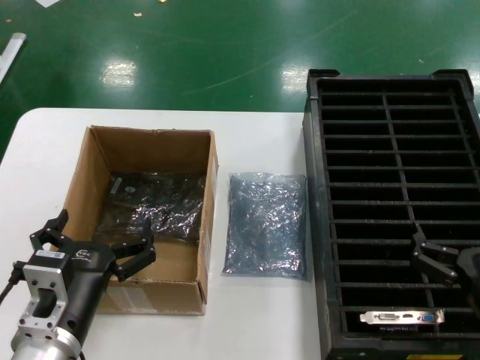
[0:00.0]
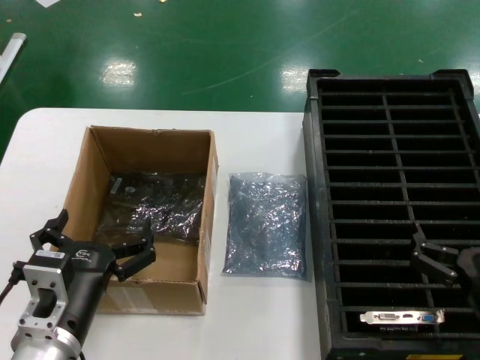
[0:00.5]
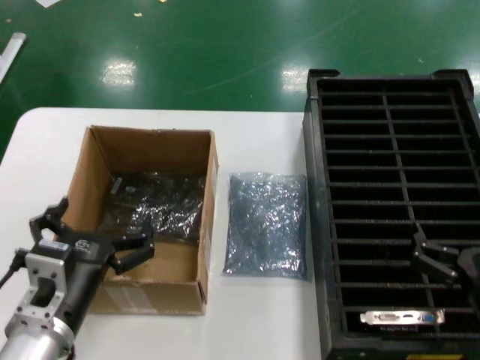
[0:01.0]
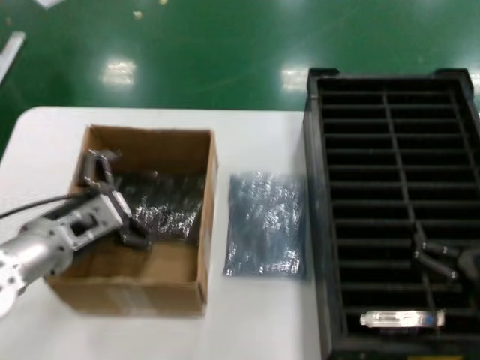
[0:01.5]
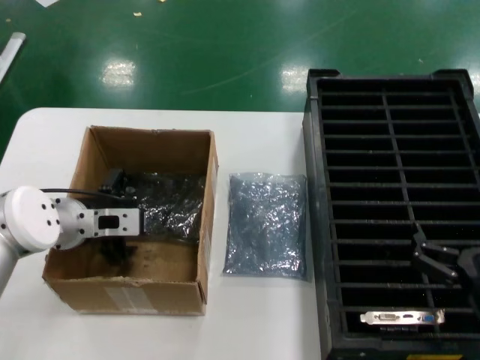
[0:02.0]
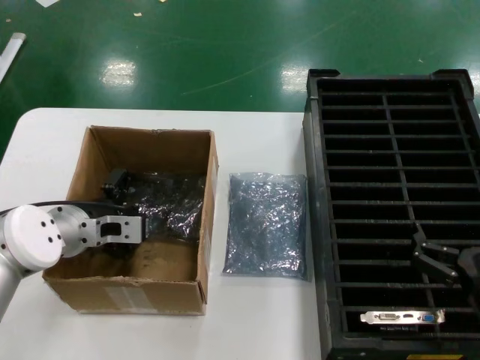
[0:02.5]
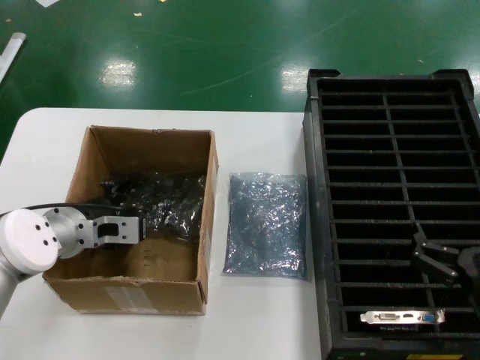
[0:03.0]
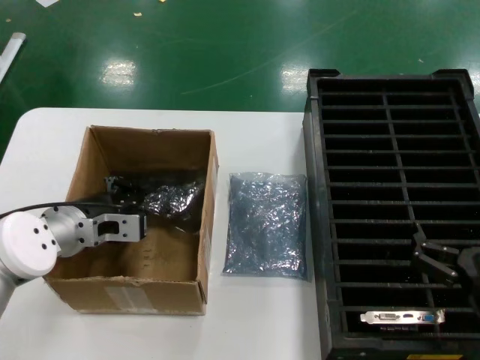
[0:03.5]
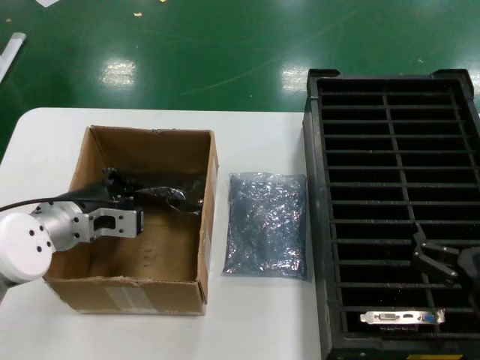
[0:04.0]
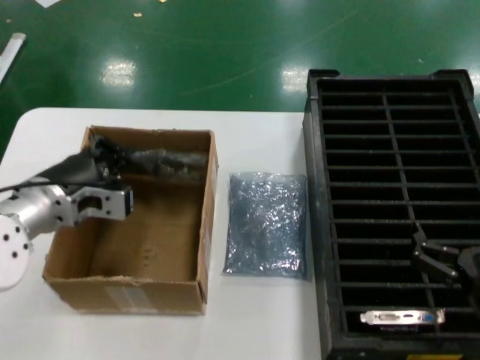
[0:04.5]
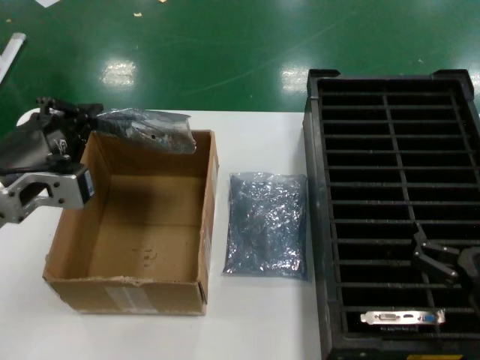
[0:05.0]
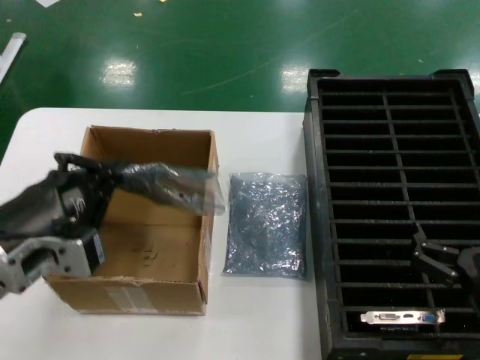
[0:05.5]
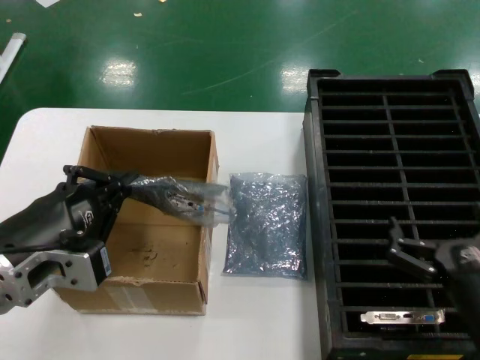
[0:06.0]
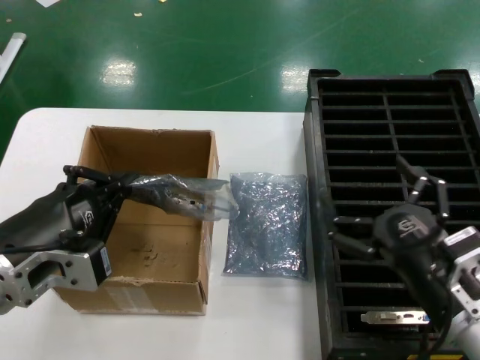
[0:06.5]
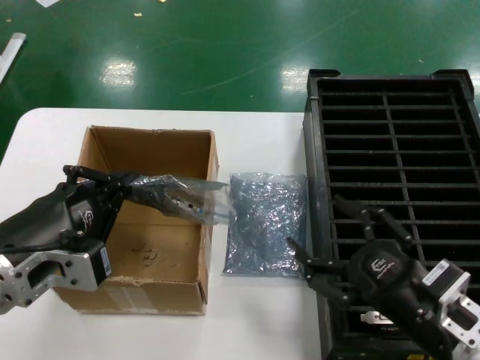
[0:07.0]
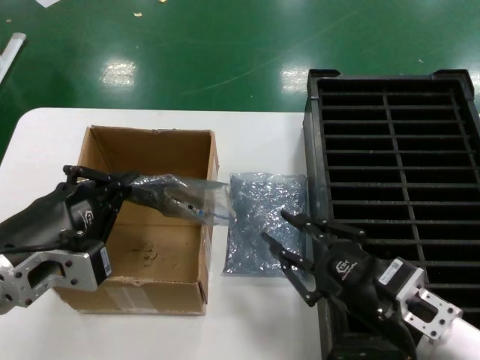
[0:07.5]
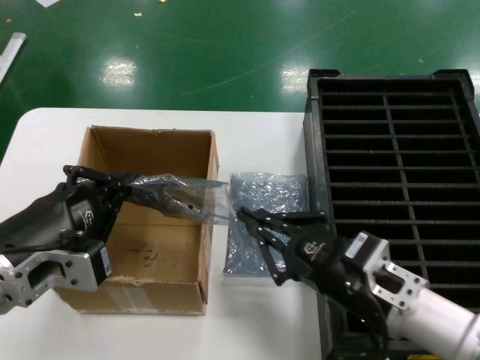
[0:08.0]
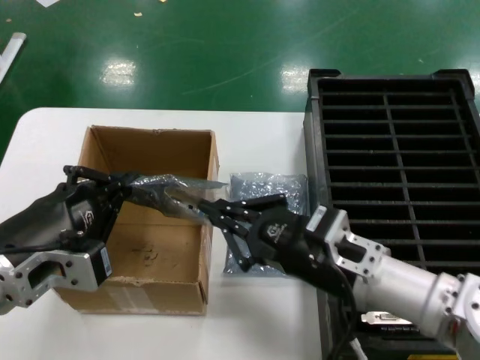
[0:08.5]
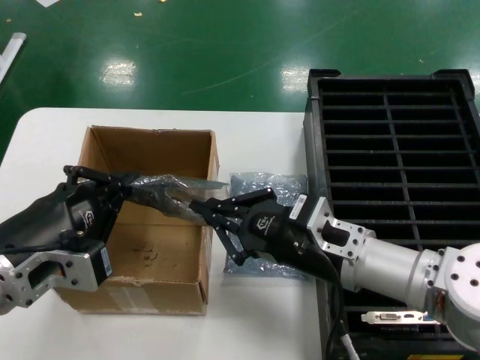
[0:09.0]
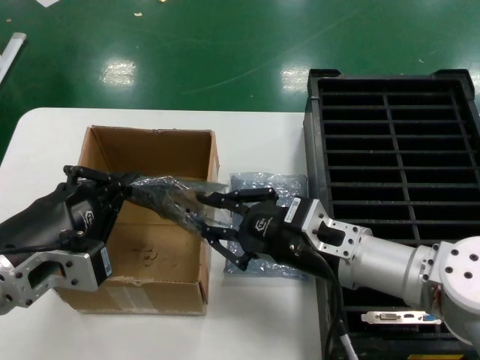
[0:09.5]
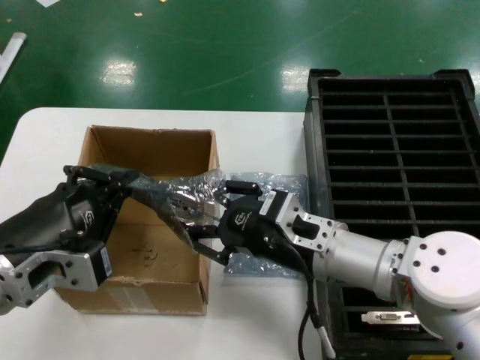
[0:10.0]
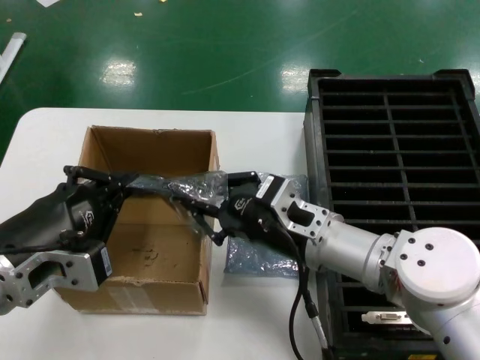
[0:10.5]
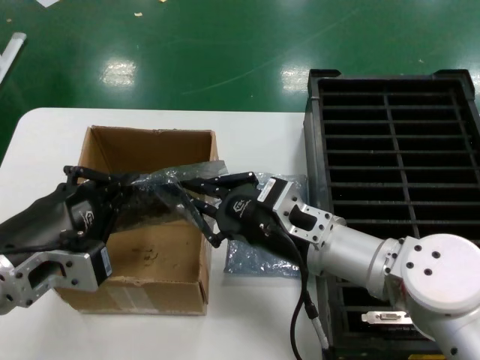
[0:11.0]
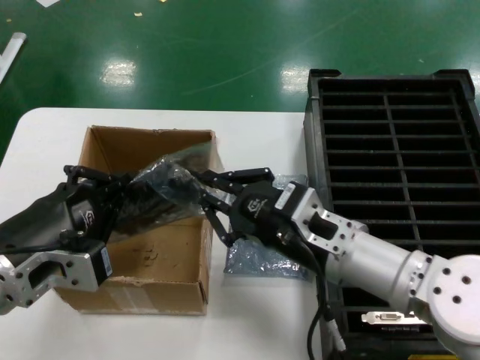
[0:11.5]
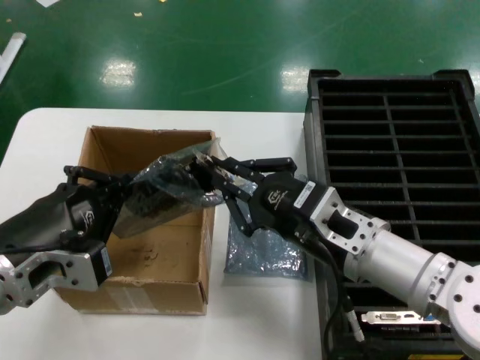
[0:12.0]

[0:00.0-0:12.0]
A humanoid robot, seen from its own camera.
Task of the whole recording: take out graphics card from box remove packaging put into black container.
Step, 0:00.0 to 0:03.5: Grasp the bag.
Step, 0:04.0 to 0:05.5: Lift the bag.
0:00.0 to 0:02.0: The left hand heads forward, covering approximately 20 cm.
0:02.0 to 0:04.0: The hands move only a little.
0:04.0 to 0:06.0: The left hand moves backward, approximately 20 cm.
0:06.0 to 0:08.0: The right hand moves to the left, some 10 cm.
0:08.0 to 0:10.0: The right hand shifts roughly 10 cm forward and to the left.
0:10.0 to 0:12.0: The hands stay close to where they were, moving slightly.

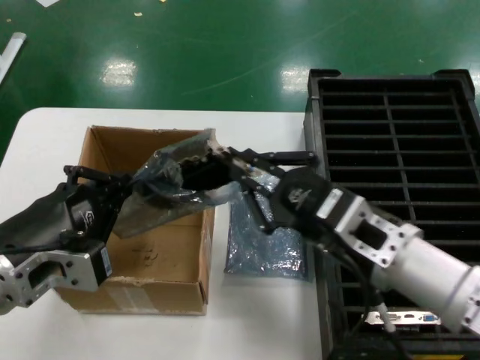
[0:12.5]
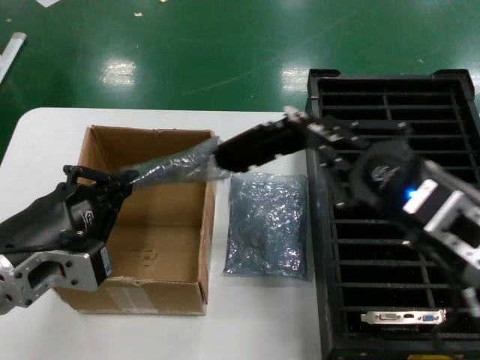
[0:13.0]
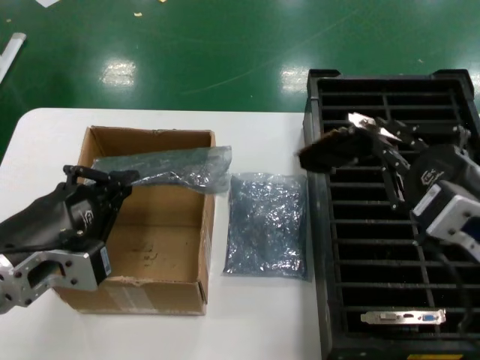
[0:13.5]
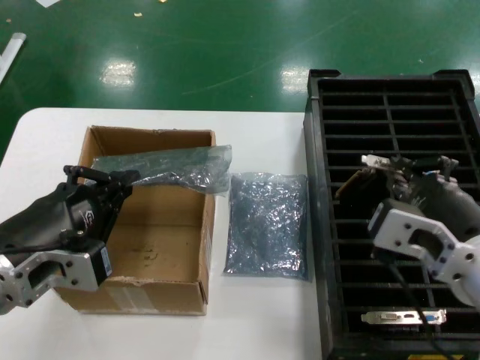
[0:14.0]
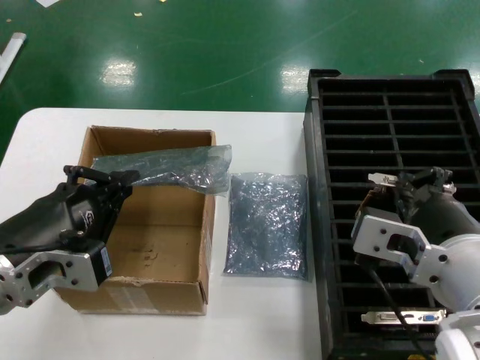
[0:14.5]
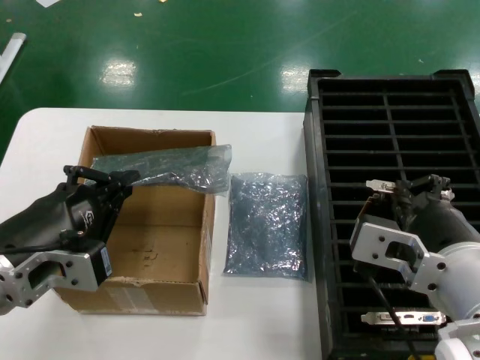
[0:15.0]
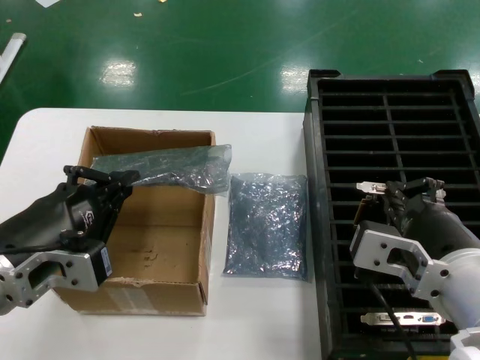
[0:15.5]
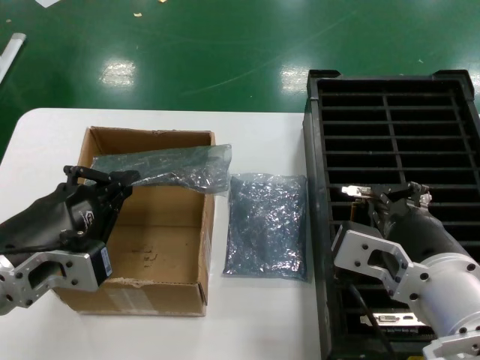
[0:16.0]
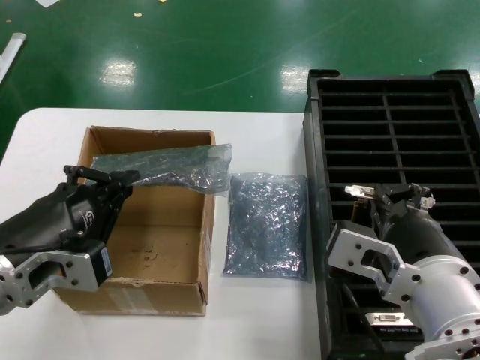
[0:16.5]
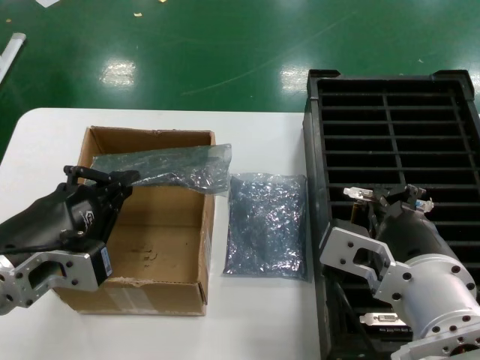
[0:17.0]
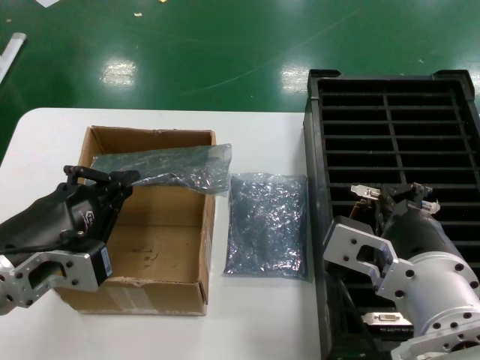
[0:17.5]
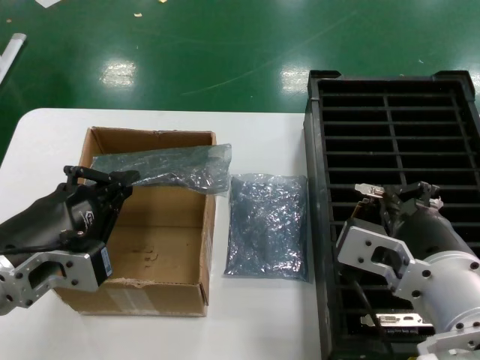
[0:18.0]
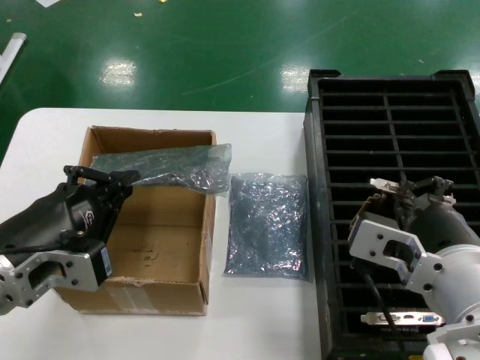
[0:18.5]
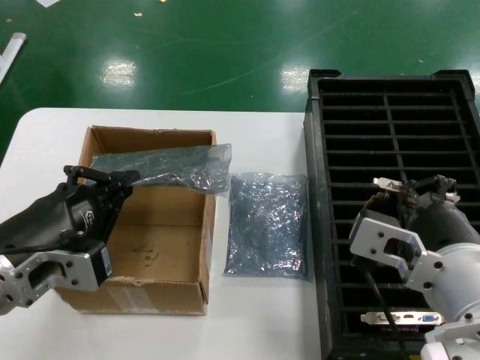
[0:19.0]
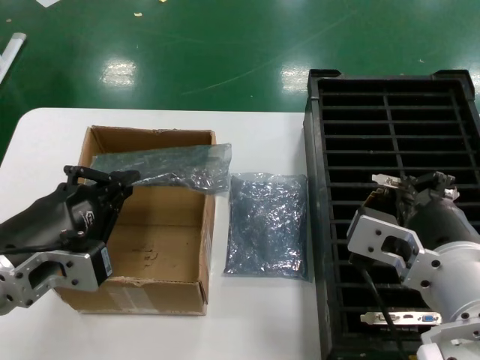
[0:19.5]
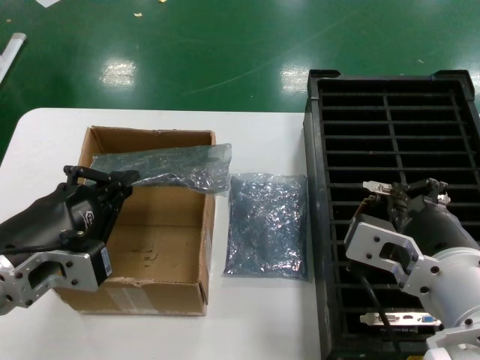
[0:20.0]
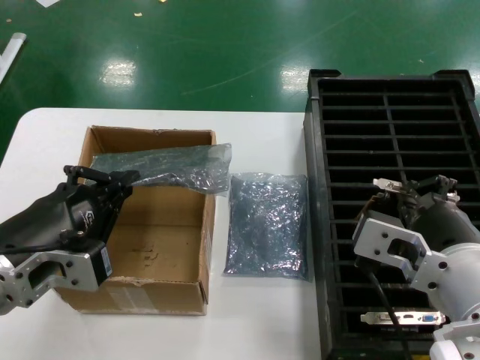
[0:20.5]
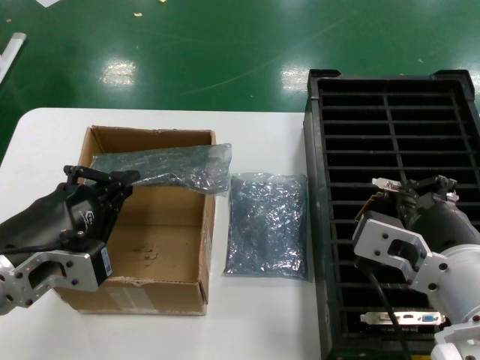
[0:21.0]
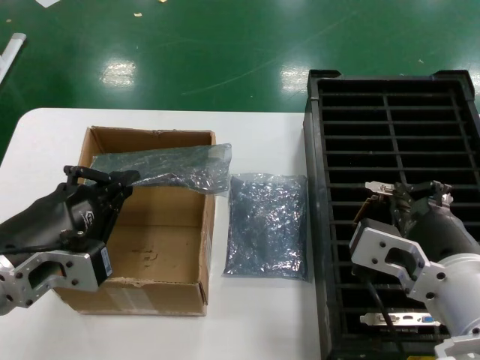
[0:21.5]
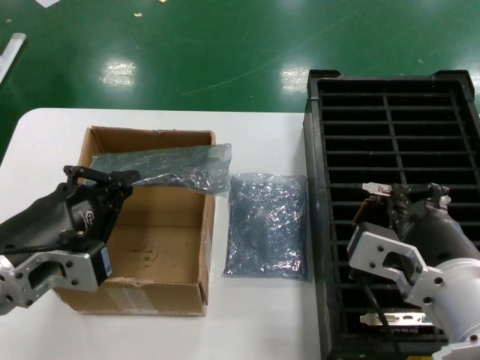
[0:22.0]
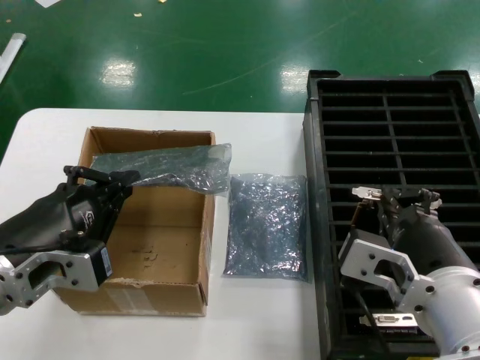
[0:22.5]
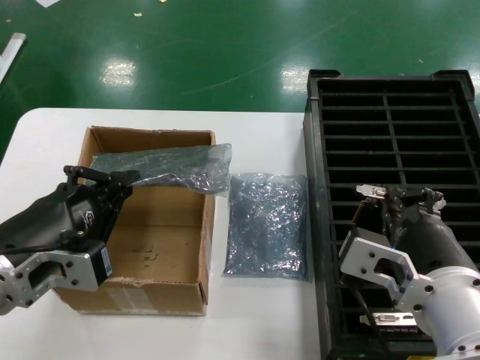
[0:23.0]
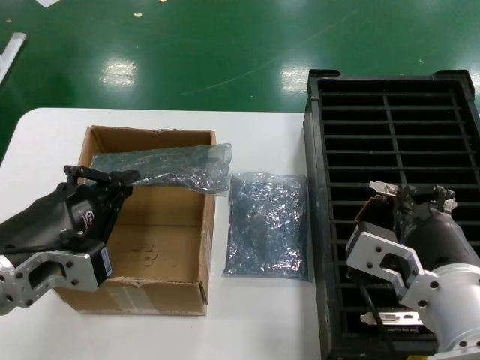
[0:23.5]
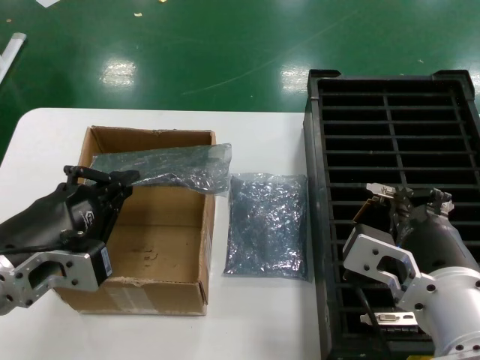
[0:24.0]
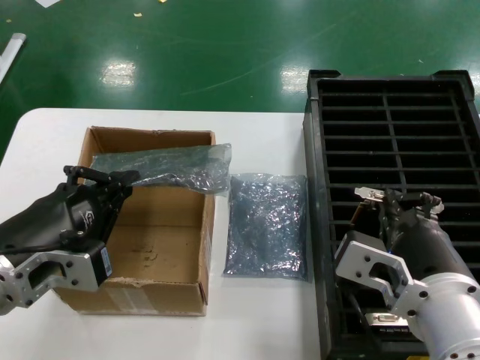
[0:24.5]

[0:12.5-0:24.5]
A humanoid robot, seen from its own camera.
Task of the whole recording: take out graphics card from box remove packaging put into black container.
0:12.5 to 0:14.5: The right hand heads backward and upward, covering about 10 cm, and goes to the right and returns, some 5 cm each way.
0:14.5 to 0:18.5: The hands move only a little.
0:18.5 to 0:20.5: The two hands keep their place.
0:20.5 to 0:24.5: The hands stay close to where they were, moving slightly.

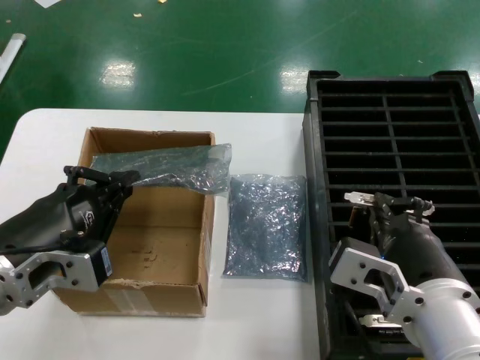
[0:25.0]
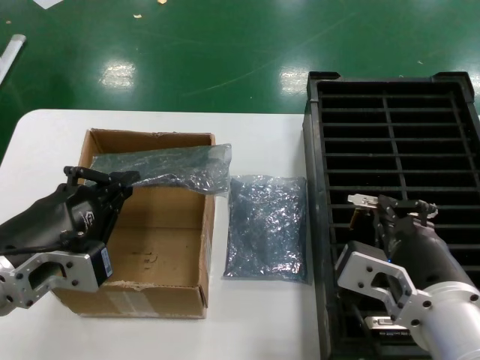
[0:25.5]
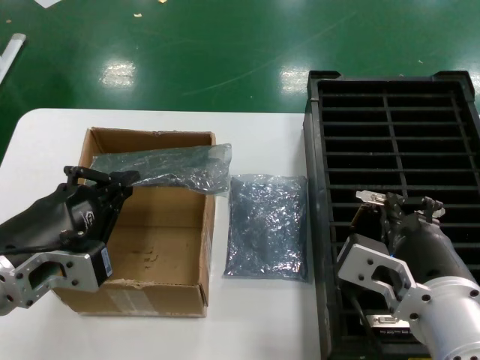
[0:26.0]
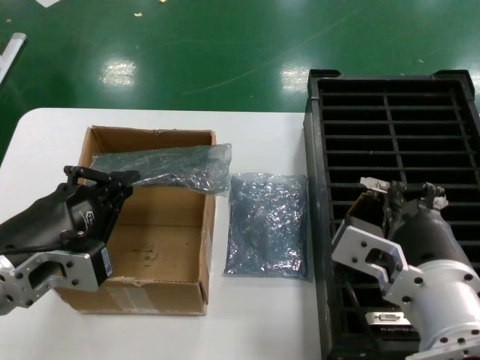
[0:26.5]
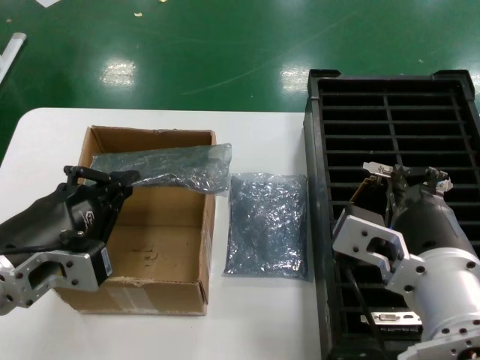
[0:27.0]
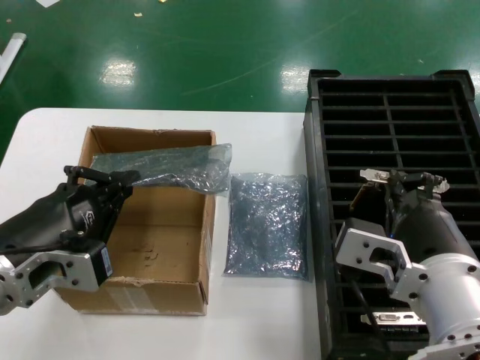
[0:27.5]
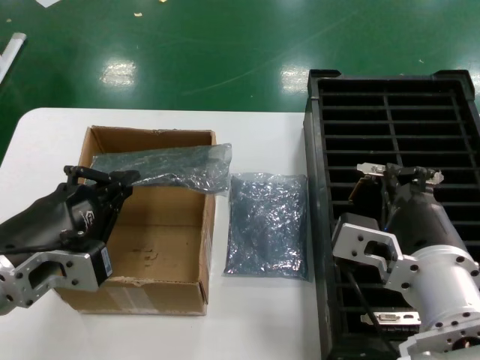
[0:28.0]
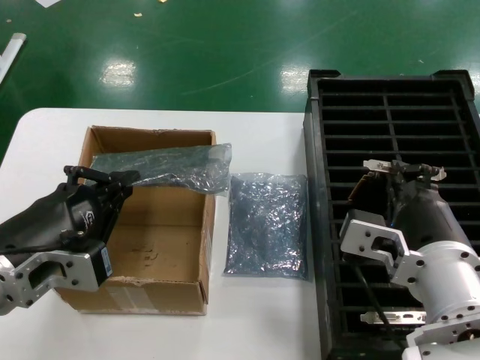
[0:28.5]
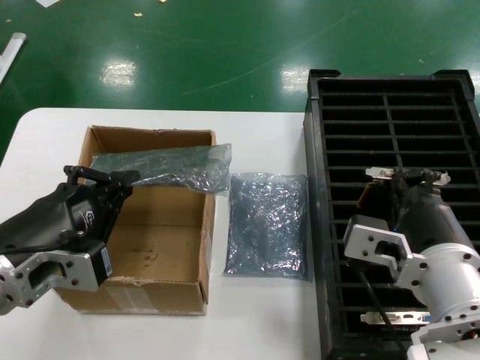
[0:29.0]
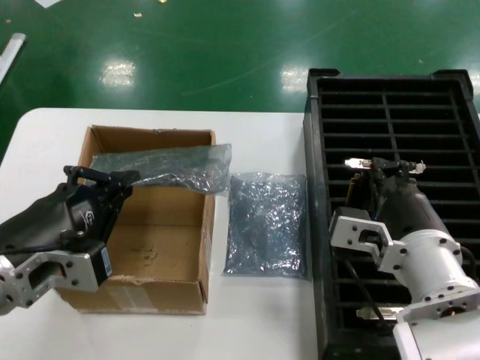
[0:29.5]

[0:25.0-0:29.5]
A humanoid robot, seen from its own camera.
Task of the whole recording: take out graphics card from box remove packaging put into black container.
0:25.0 to 0:27.0: The hands make only small movements.
0:27.0 to 0:29.5: The right hand is displaced forward and downward by about 10 cm.
